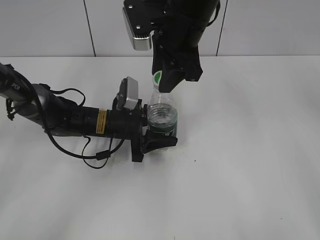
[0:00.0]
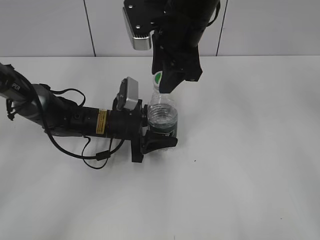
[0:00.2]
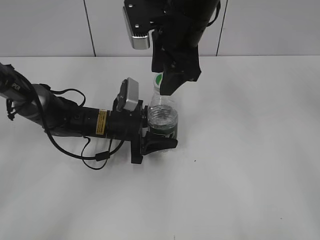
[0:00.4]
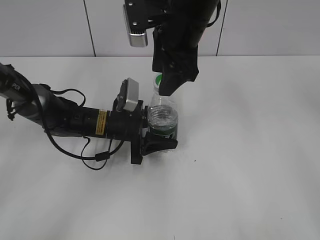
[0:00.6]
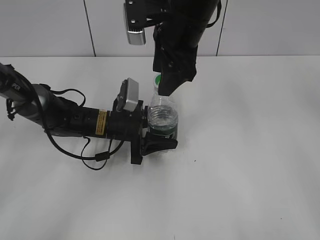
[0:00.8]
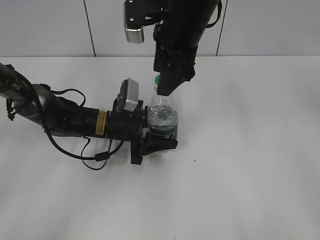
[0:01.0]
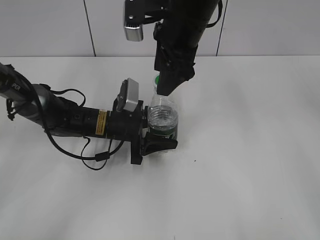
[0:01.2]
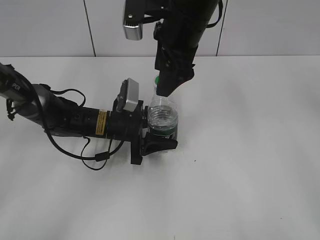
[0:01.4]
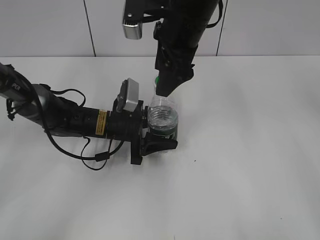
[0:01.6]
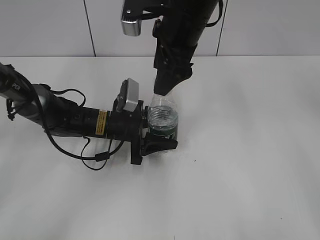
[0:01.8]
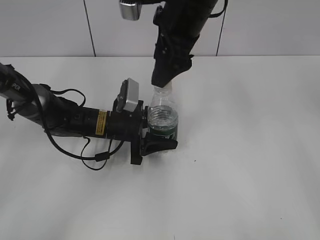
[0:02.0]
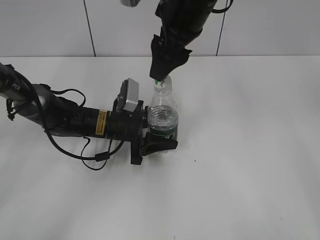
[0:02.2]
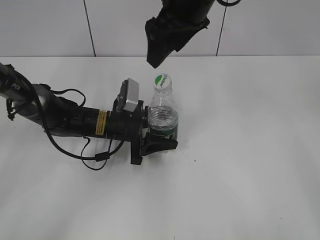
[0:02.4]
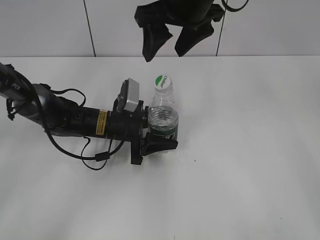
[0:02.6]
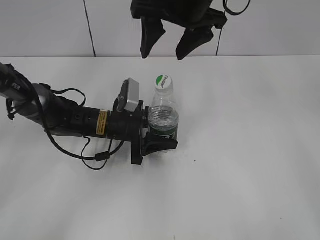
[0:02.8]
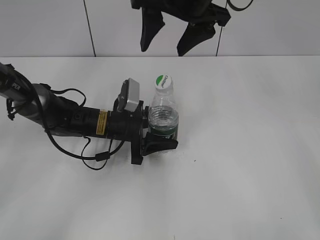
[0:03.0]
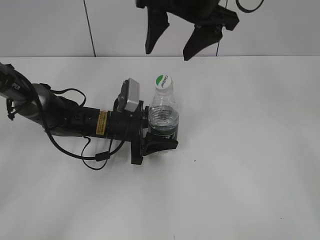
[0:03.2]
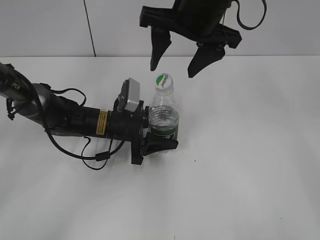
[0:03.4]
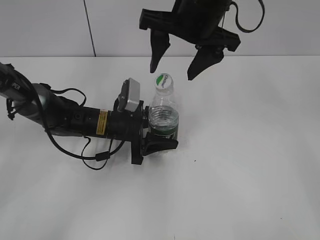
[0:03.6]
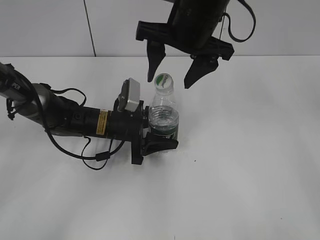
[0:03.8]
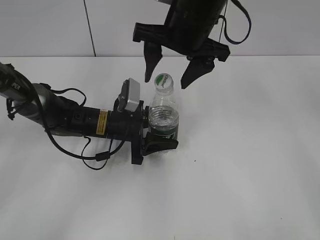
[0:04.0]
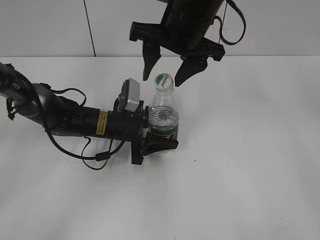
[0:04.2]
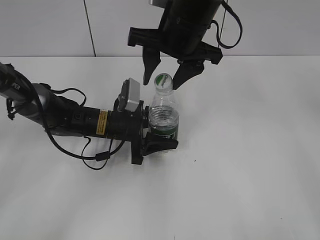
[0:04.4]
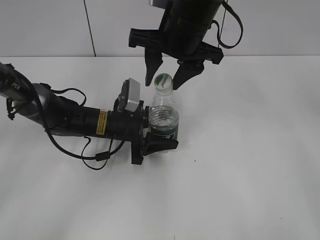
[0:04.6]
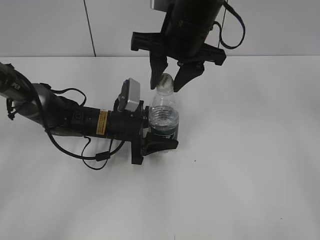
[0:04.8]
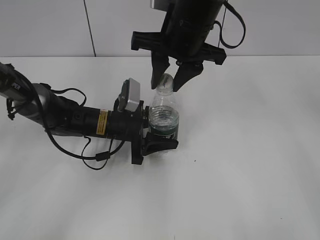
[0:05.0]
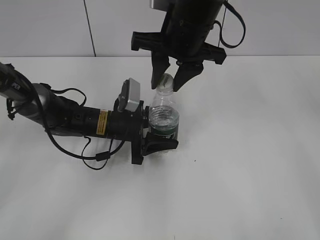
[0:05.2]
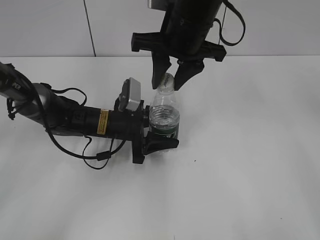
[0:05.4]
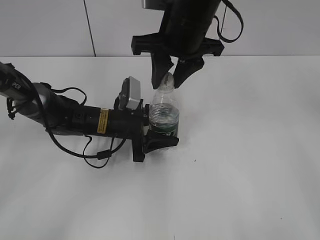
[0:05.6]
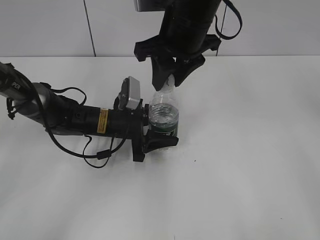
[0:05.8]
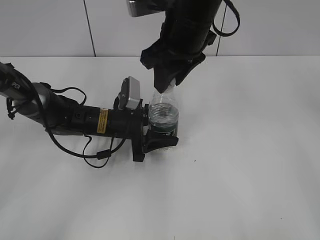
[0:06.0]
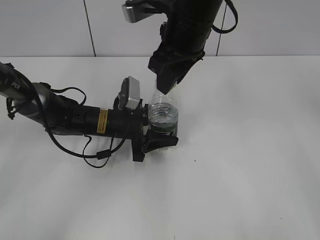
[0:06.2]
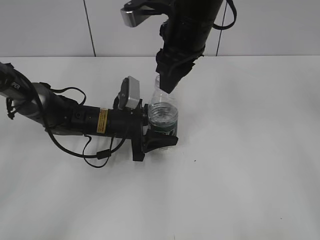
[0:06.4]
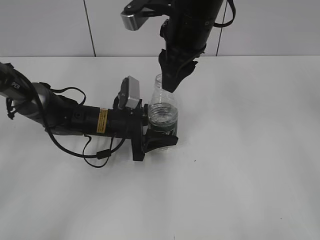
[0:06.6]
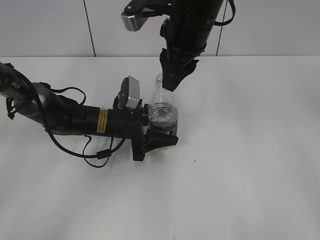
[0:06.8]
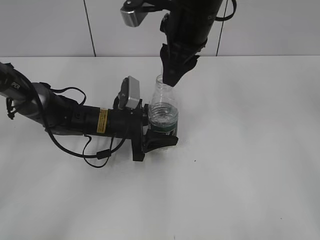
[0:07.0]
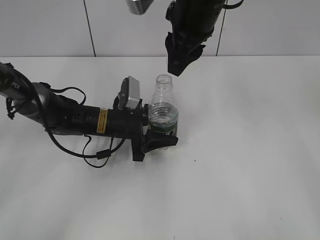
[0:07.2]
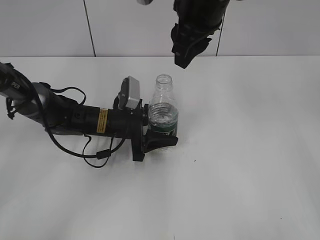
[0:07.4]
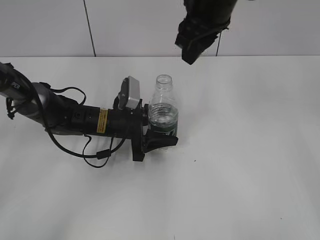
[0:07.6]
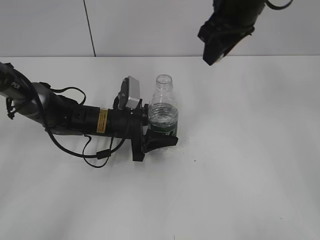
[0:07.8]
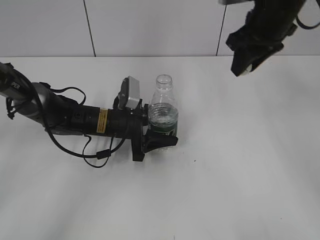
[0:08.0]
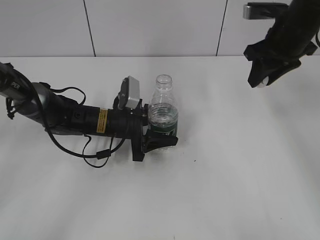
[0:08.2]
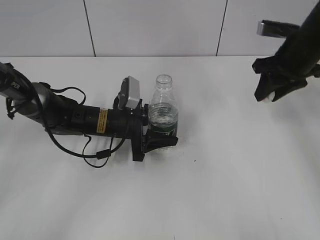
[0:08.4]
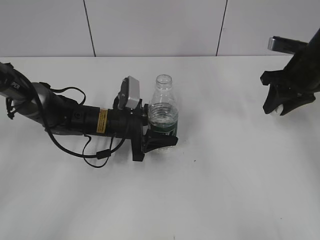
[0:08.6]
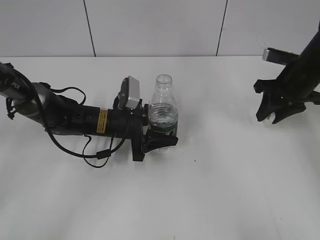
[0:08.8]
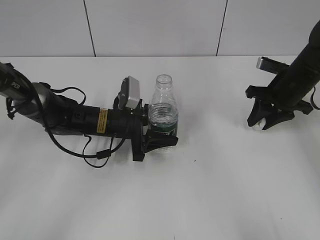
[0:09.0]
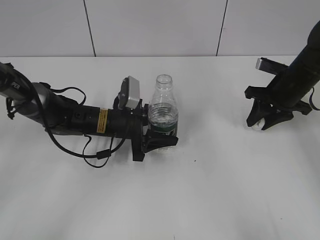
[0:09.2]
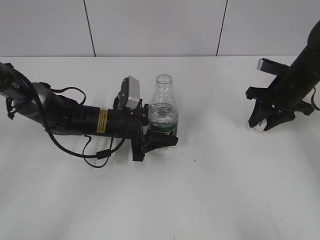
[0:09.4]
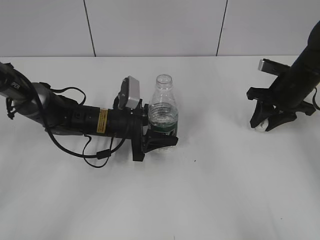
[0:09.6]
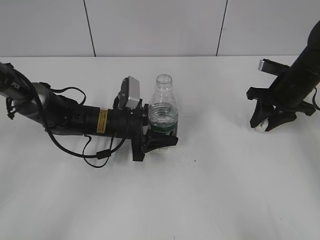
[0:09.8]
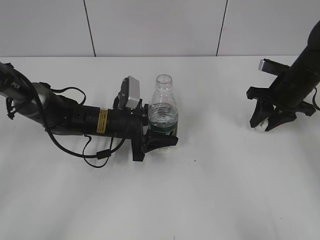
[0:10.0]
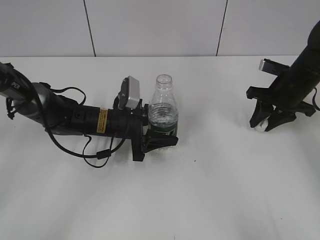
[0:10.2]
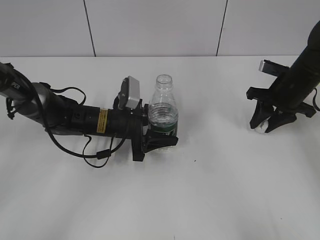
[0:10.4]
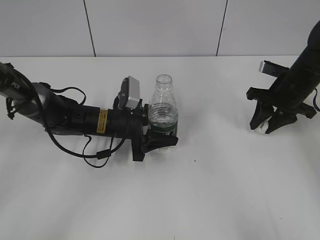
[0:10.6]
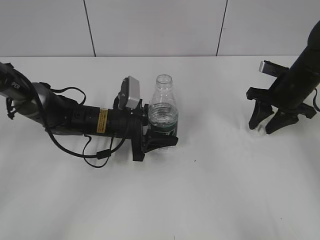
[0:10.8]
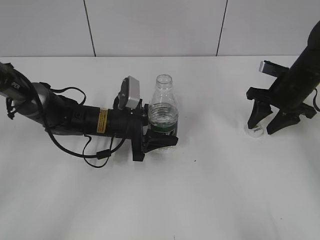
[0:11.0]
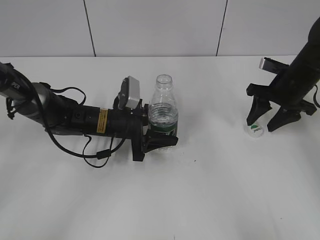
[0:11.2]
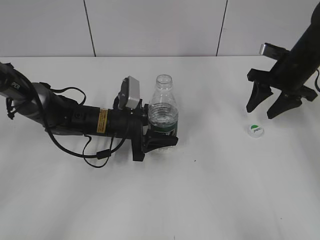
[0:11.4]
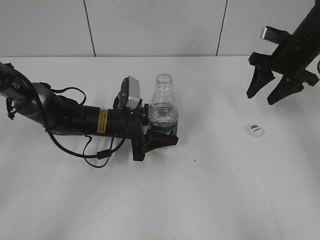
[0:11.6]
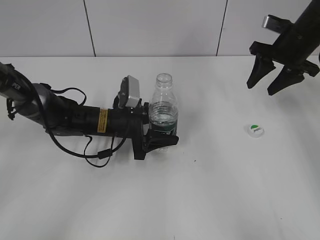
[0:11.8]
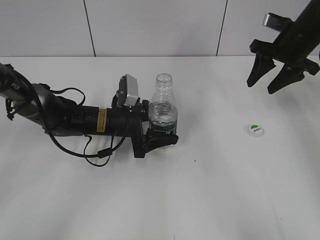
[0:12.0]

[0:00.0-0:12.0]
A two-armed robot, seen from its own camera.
Step, 0.0 to 7.0 s: Unscrew the bottle cap with the right gripper while holding the bottle with the left gripper.
Step, 7.2 to 11.2 s: Place the bottle cap on the table with the right gripper.
0.0 to 1.6 s: The right gripper opens up.
1.6 to 3.0 s: The right gripper shifts about 5 cm upward.
3.0 to 4.4 s: The right gripper travels downward by about 5 cm, and closes up.
4.4 to 6.0 s: The right gripper closes its fingers.
7.6 to 9.0 s: The right gripper shifts some 25 cm to the right and downward.
9.0 to 10.4 s: Both grippers stay put.
10.4 to 12.0 s: The right gripper travels upward by about 10 cm, and opens.

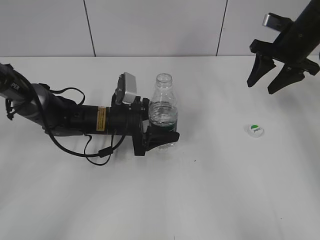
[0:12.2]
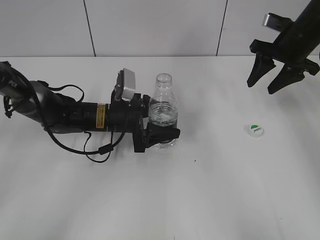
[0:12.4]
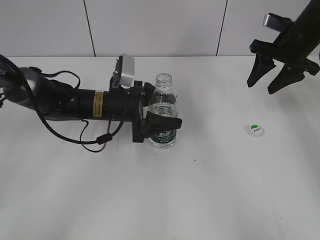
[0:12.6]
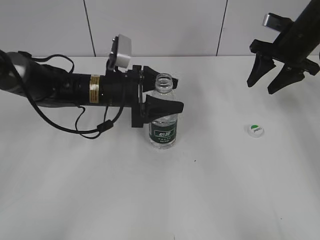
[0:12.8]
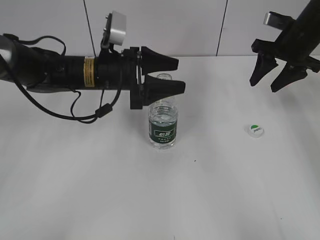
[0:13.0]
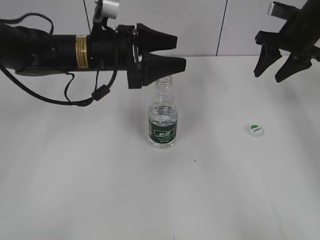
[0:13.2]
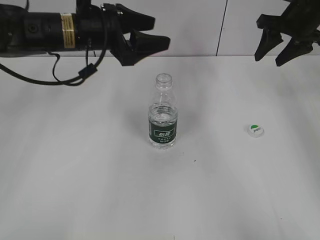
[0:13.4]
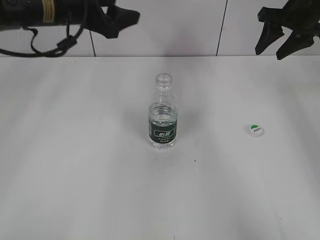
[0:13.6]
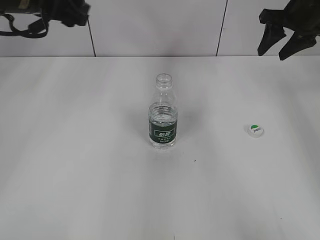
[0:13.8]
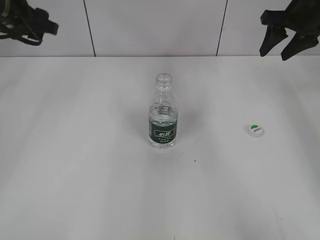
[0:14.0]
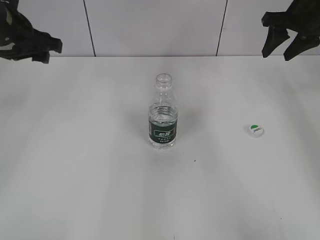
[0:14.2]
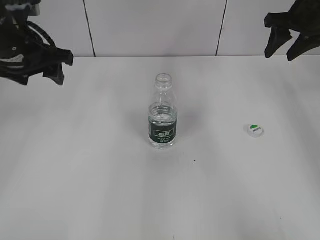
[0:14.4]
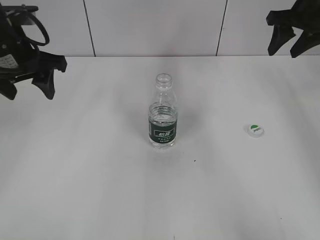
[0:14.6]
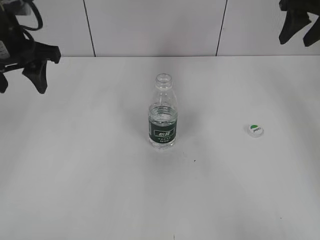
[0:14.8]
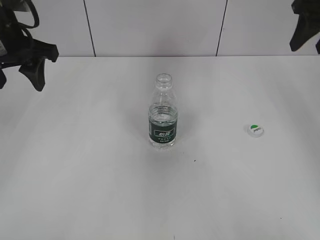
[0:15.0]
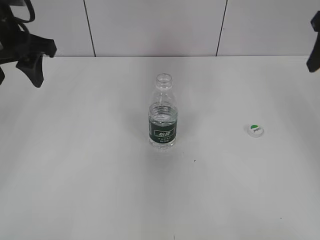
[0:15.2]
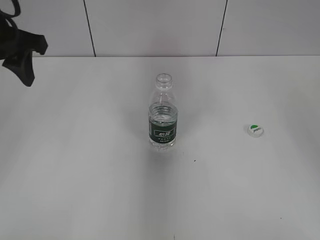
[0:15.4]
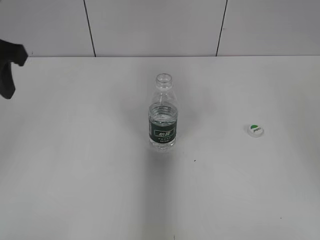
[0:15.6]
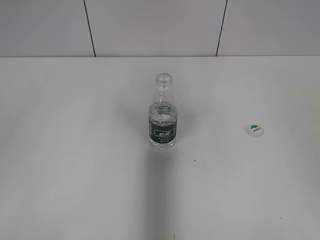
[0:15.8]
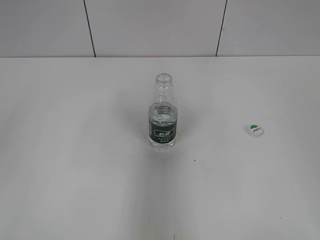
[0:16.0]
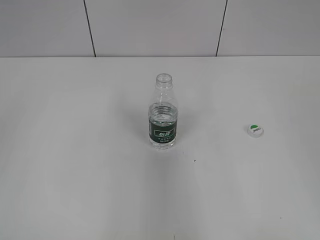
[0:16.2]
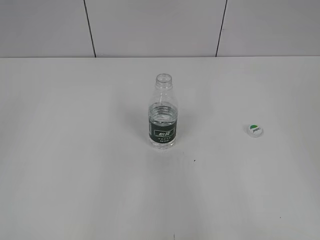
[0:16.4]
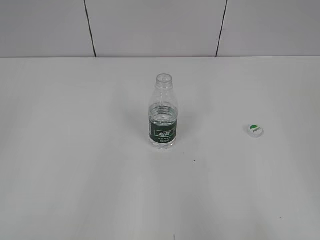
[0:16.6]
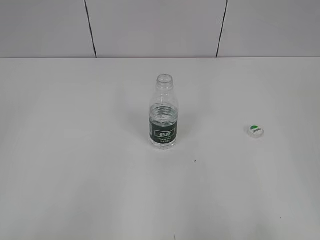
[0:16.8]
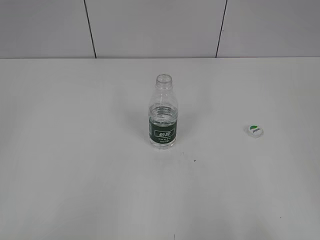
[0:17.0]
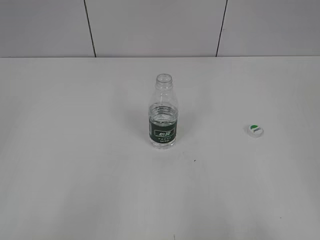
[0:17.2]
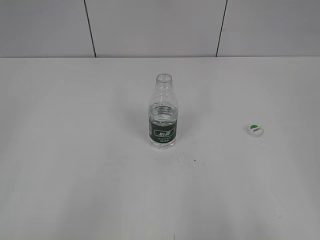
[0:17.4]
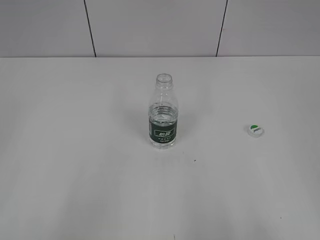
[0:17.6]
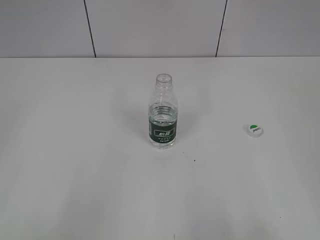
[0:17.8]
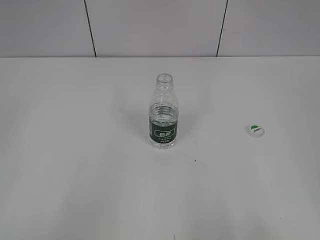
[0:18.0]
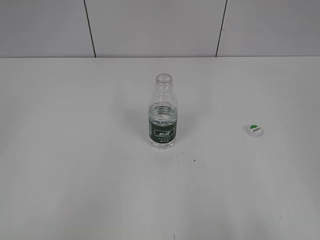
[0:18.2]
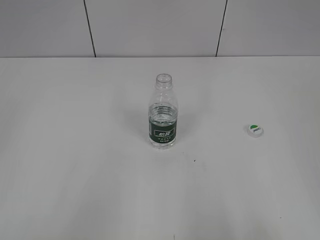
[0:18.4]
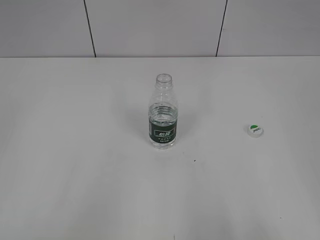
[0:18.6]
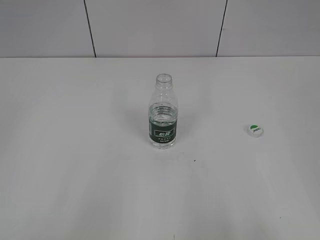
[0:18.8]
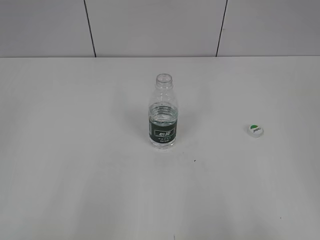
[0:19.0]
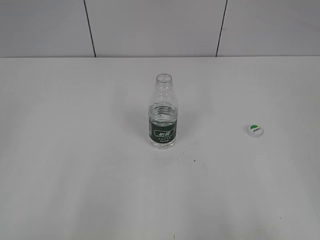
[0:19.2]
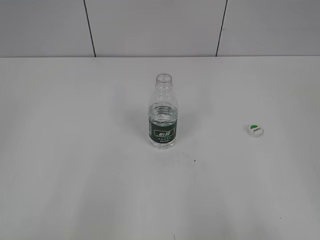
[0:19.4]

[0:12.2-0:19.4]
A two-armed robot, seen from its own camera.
Step, 12.2 to 13.0 s: Place the bottle on the table with the left gripper.
12.2 to 13.6 s: The left gripper goes roughly 20 cm upward. Meanwhile the right gripper goes roughly 5 cm upward.
13.6 to 15.0 s: The left gripper heads to the left, covering roughly 10 cm, while the right gripper heads backward and upward, covering some 10 cm.
15.0 to 16.6 s: Both grippers travel together backward, some 35 cm.

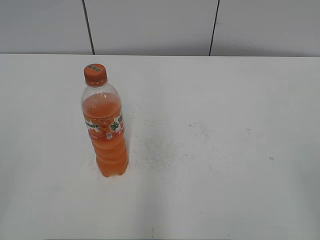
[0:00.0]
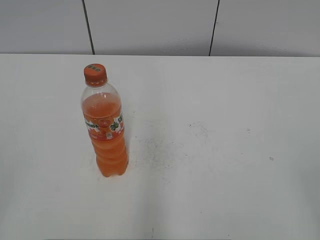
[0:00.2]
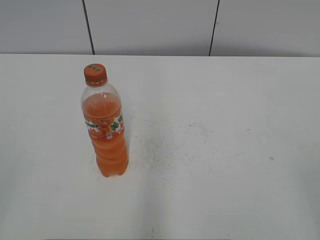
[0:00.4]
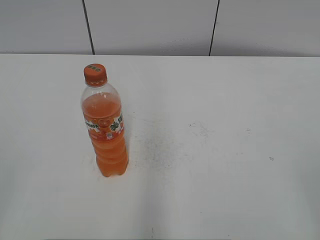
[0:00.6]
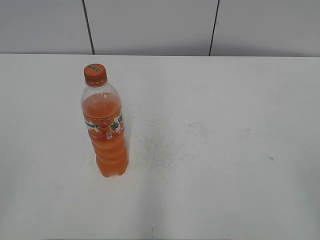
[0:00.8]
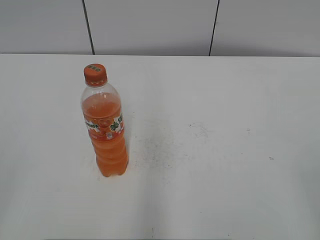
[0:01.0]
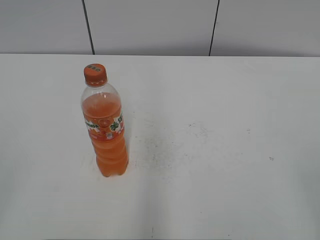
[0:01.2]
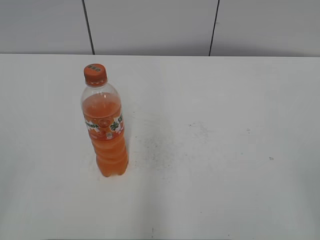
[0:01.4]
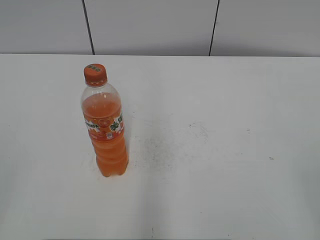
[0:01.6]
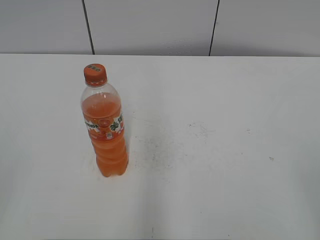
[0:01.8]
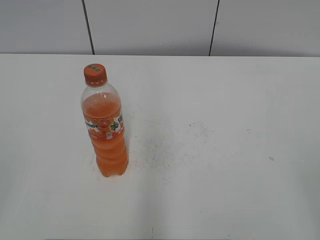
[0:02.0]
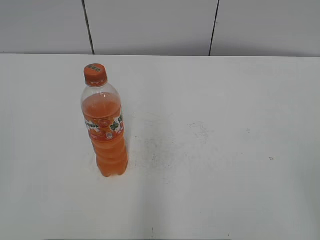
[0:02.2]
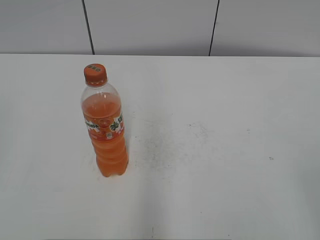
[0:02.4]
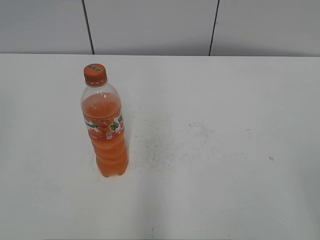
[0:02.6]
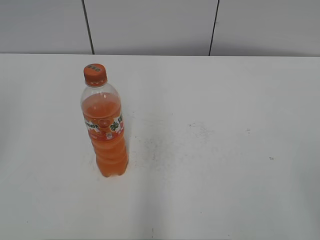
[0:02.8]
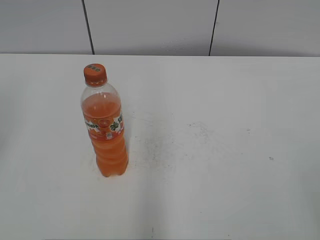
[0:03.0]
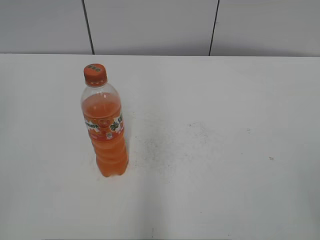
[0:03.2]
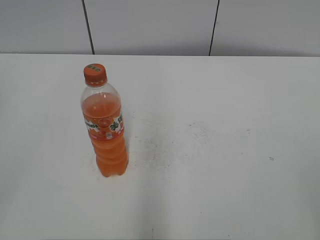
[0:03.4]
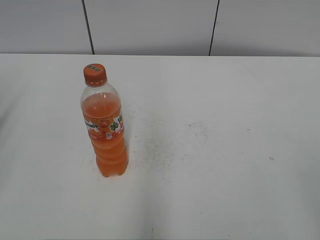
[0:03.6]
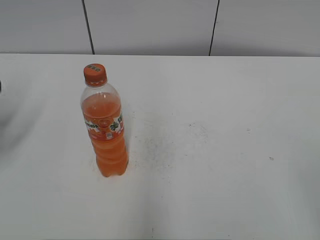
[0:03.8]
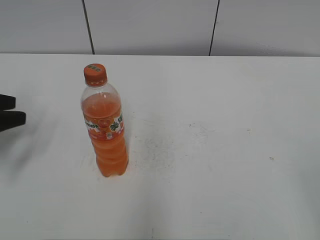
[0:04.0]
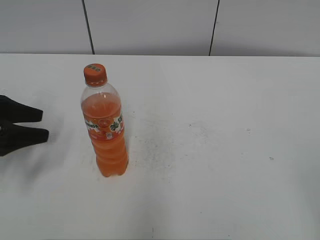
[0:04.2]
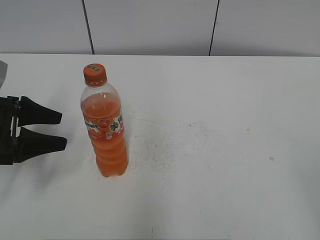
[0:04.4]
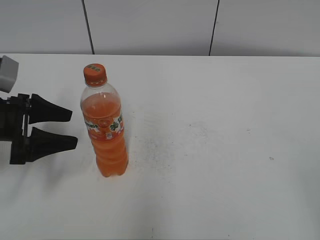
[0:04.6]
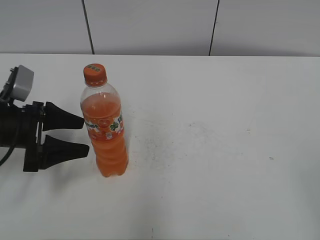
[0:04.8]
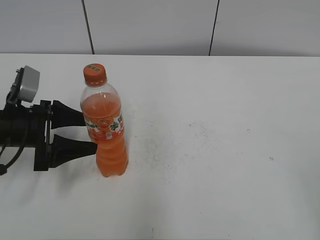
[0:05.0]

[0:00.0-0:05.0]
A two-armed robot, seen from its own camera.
3.4 to 5.0 s: The left gripper travels to the right and downward by about 25 cm, and opens its fingers.
